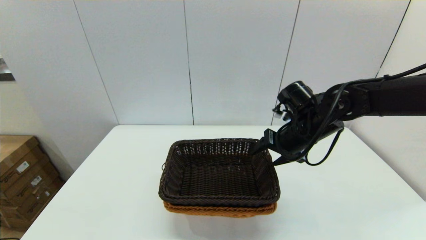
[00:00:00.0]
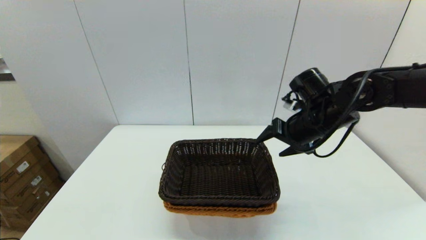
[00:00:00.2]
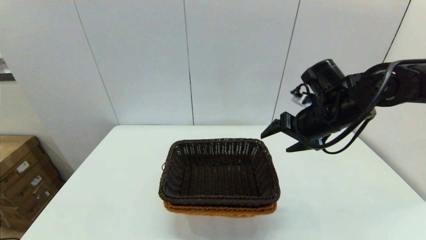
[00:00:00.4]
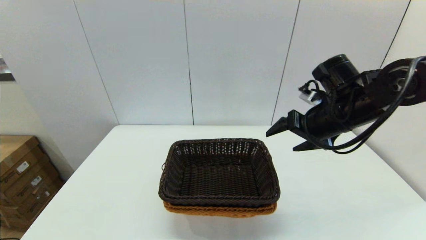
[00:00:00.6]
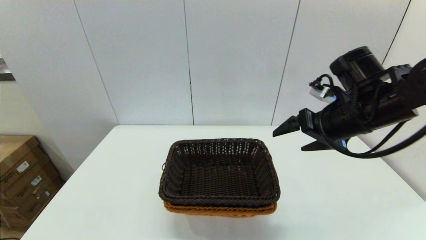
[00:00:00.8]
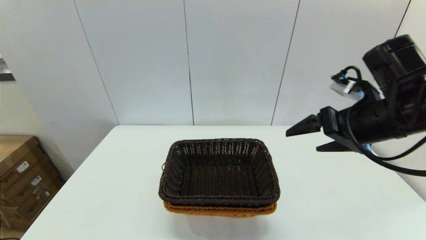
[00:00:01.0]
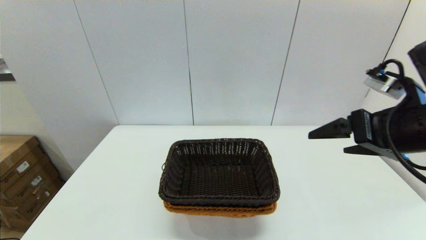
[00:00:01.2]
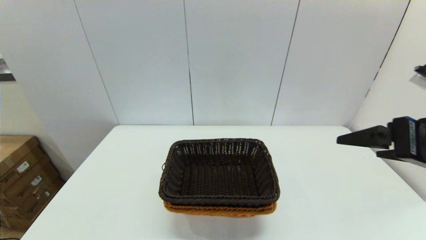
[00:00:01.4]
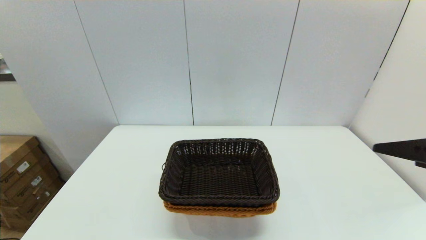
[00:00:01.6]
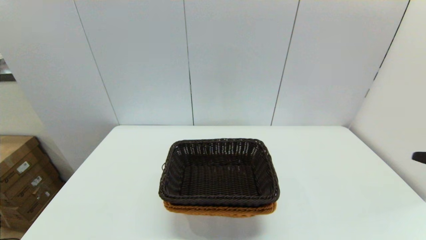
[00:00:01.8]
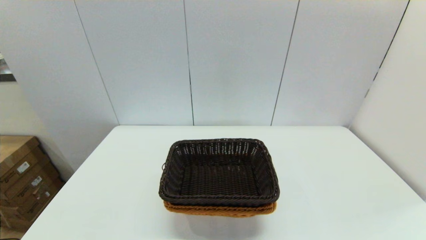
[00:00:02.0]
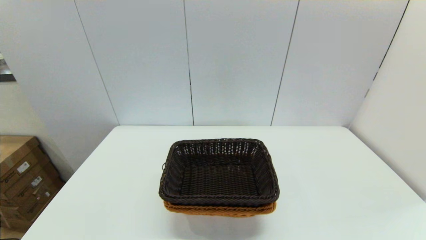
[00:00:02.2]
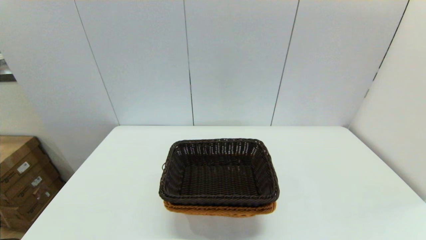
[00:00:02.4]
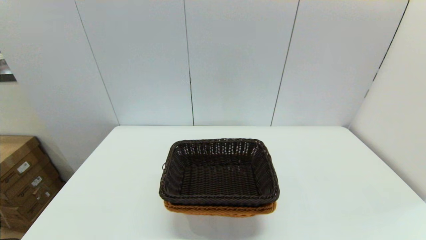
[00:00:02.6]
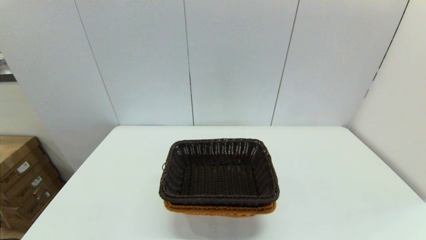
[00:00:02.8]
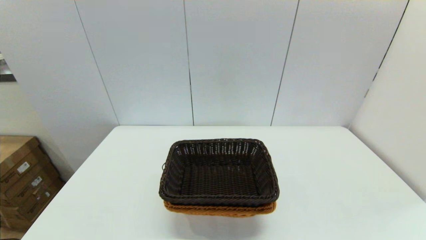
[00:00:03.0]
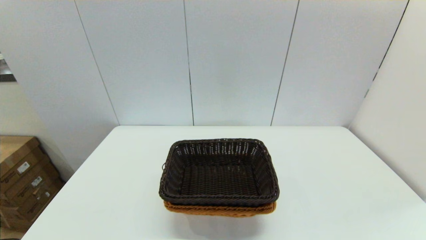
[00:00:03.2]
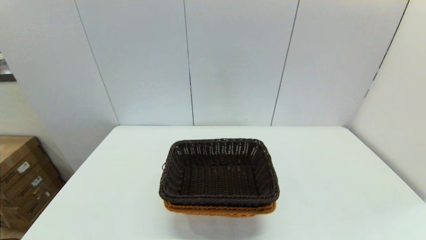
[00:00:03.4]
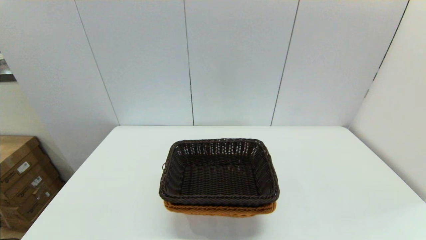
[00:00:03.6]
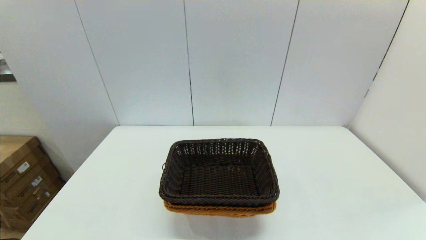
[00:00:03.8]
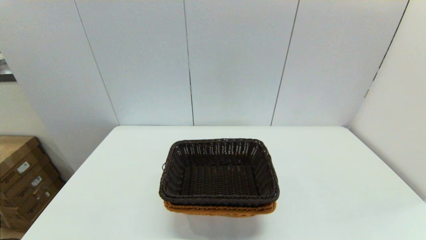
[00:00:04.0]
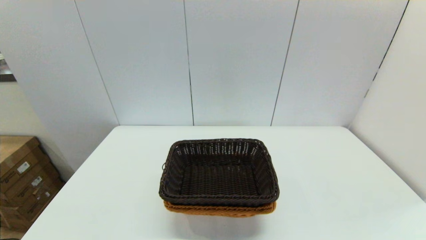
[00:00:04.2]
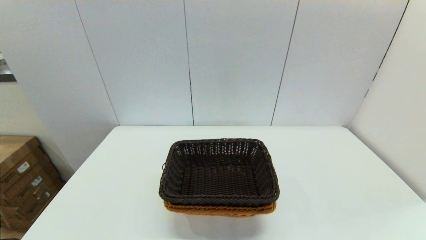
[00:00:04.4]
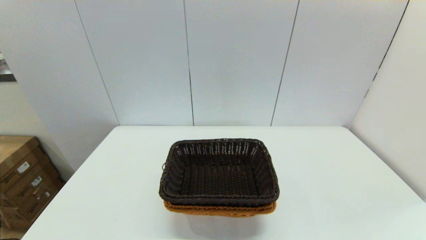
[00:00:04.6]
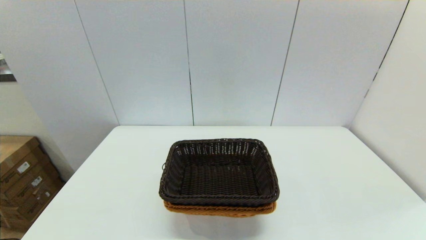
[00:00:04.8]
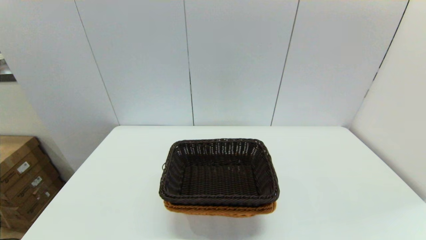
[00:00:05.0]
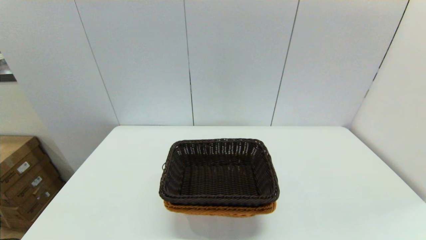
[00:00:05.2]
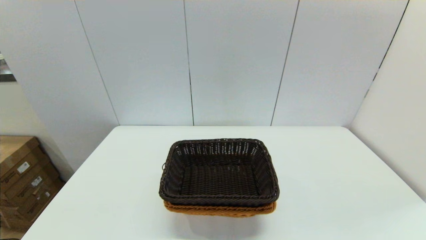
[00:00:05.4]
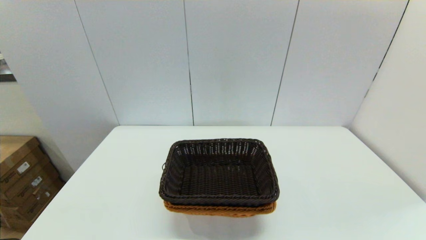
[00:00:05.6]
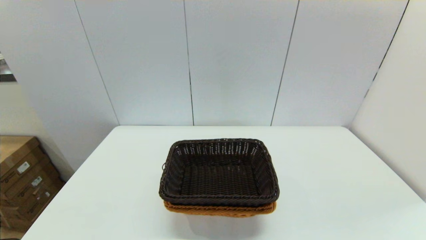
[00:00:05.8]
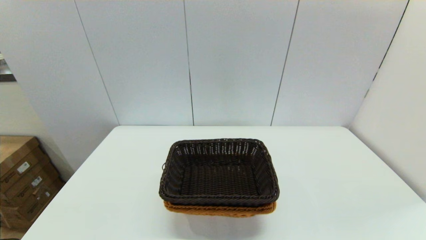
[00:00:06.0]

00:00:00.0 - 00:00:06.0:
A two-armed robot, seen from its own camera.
Task of the whole recording: stack a basket on top of another basket.
00:00:00.0 - 00:00:01.6: The right gripper heads backward, to the right and upward, covering about 30 cm.
00:00:01.6 - 00:00:03.0: The right gripper goes roughly 15 cm backward and downward.
